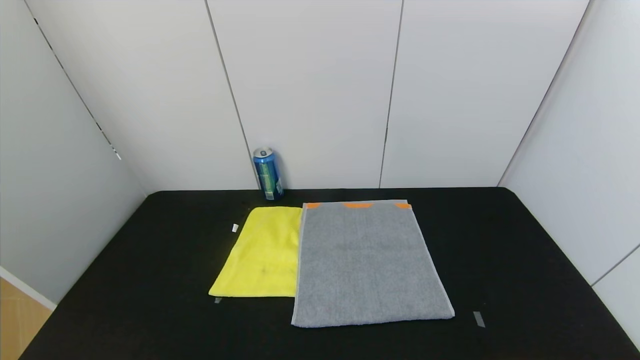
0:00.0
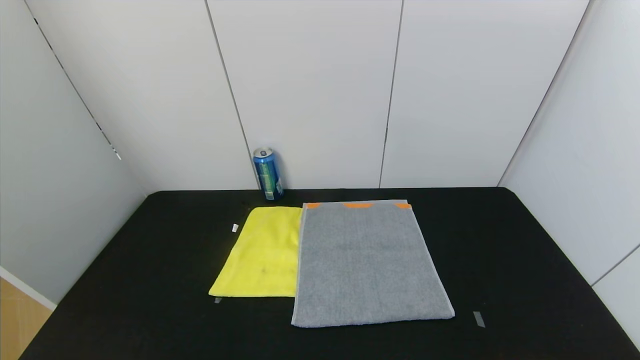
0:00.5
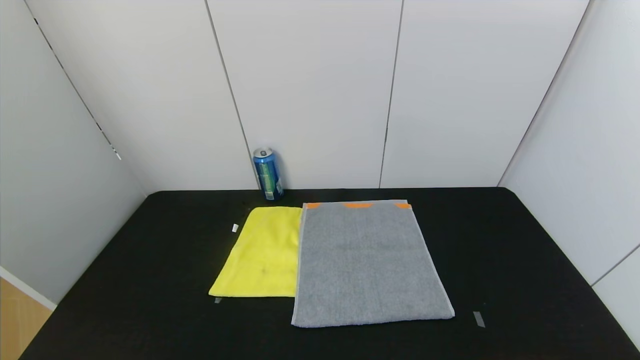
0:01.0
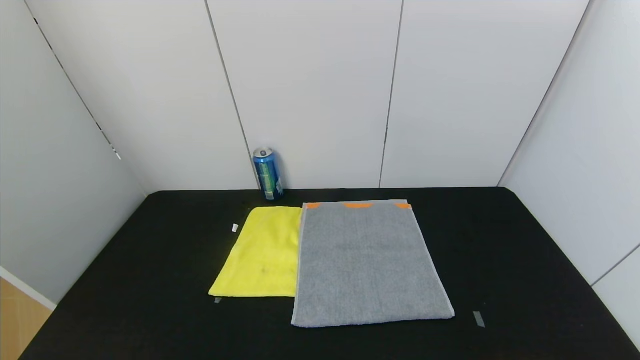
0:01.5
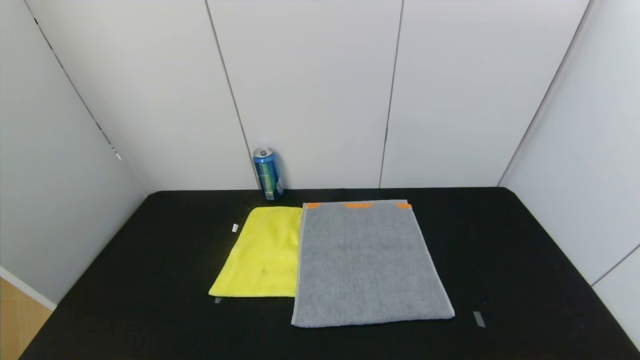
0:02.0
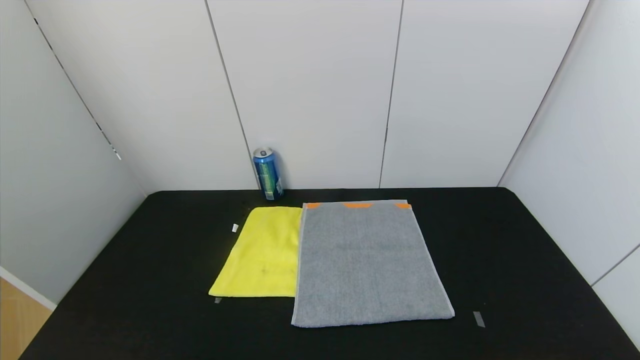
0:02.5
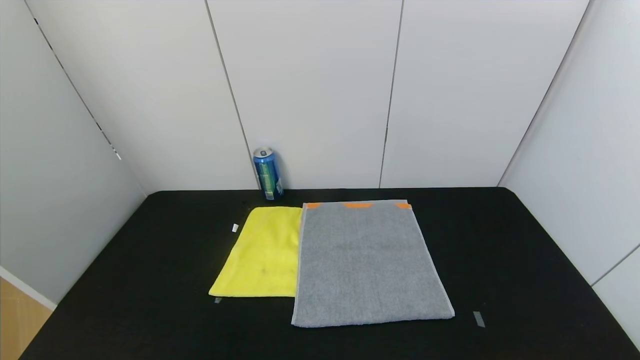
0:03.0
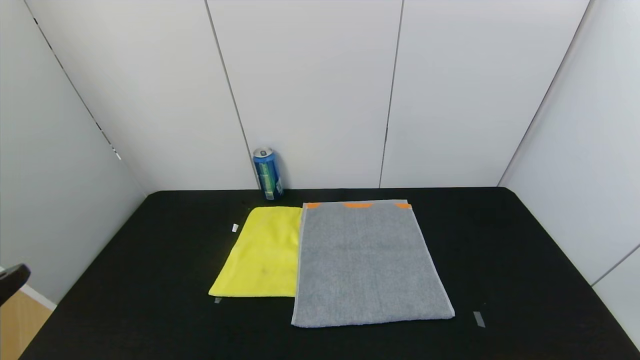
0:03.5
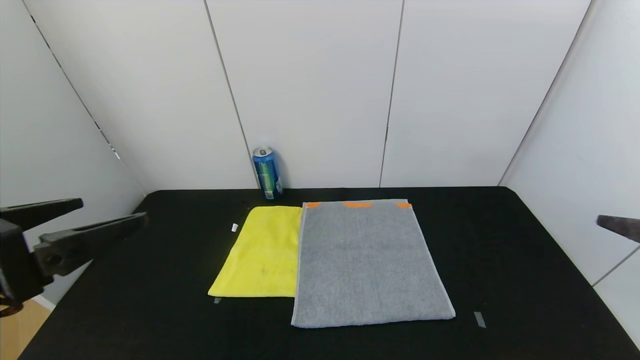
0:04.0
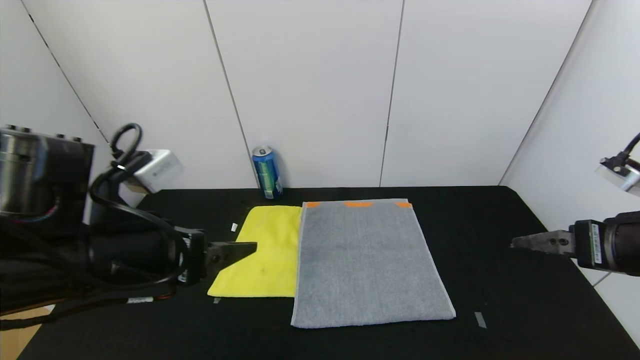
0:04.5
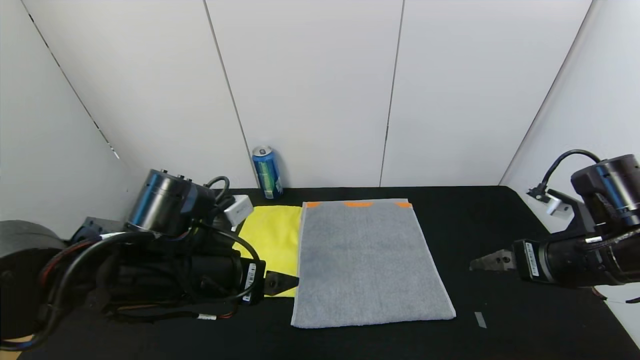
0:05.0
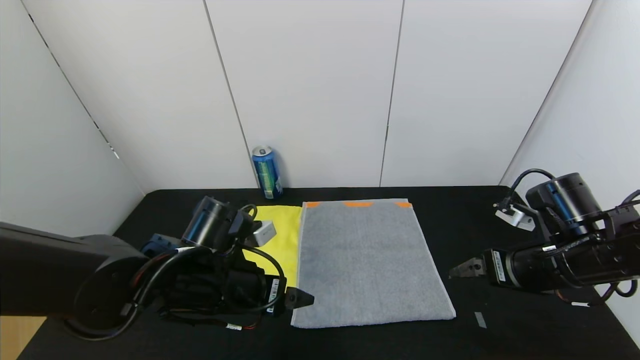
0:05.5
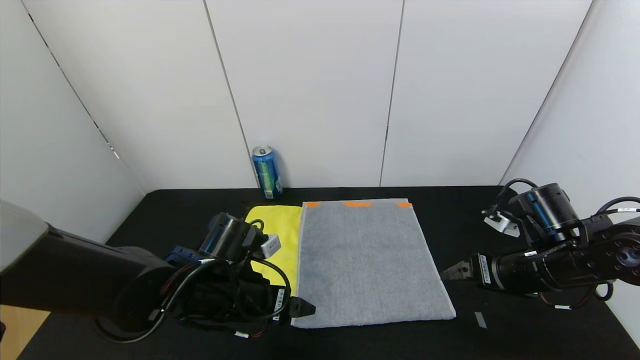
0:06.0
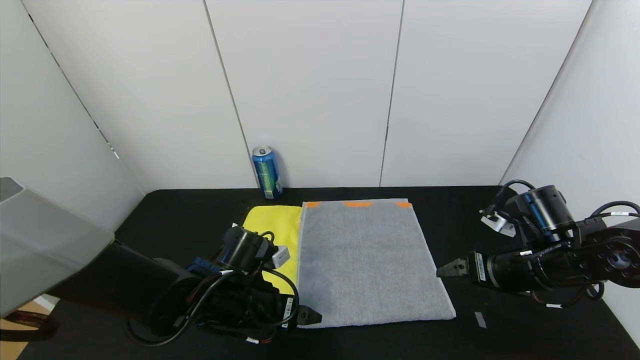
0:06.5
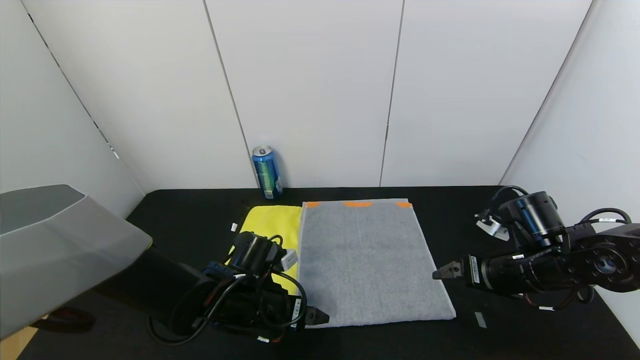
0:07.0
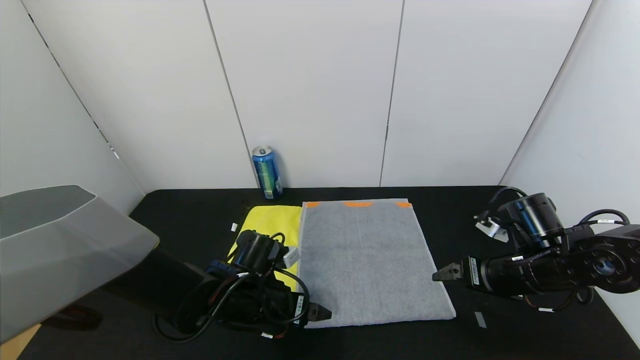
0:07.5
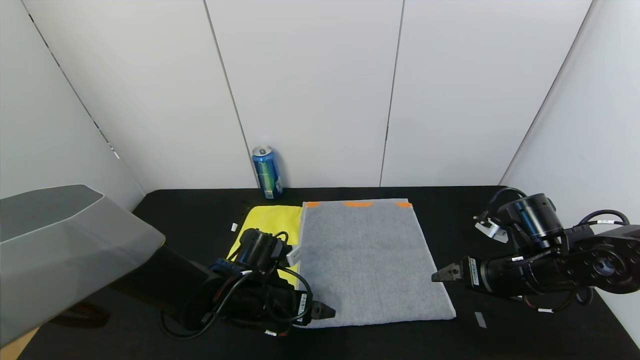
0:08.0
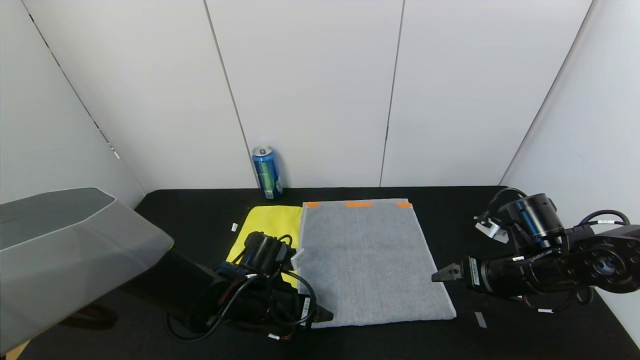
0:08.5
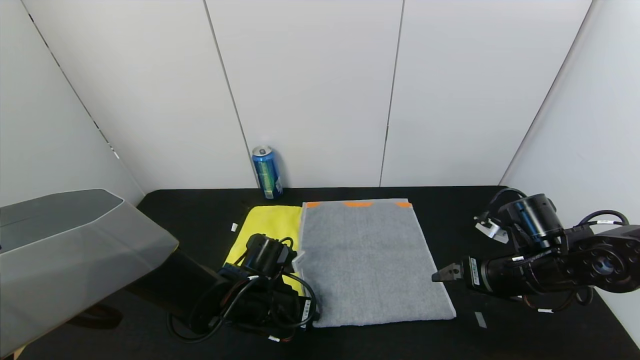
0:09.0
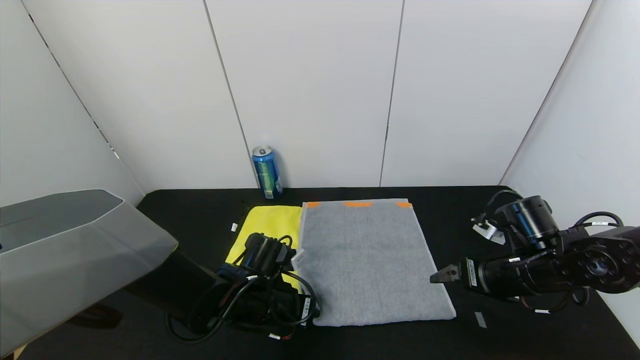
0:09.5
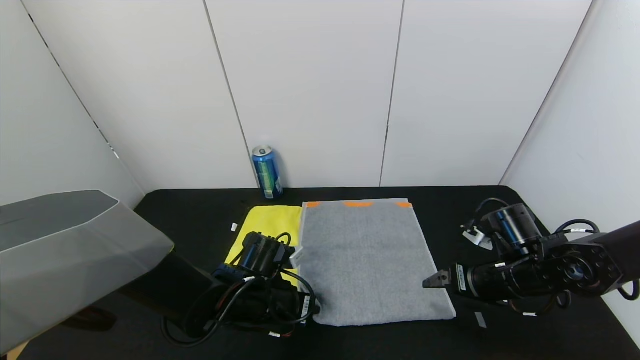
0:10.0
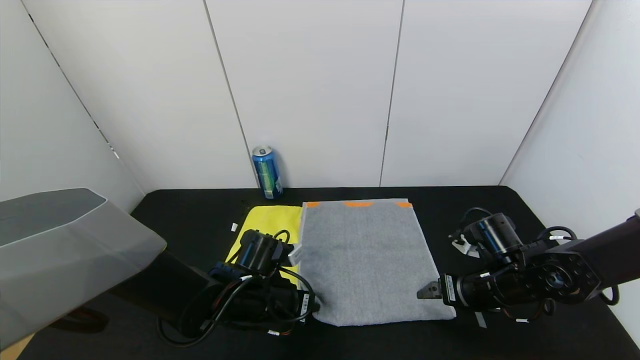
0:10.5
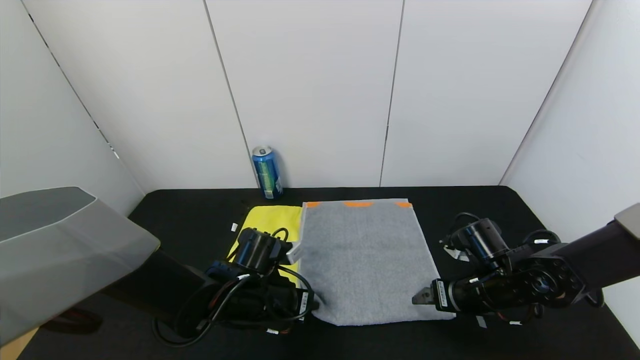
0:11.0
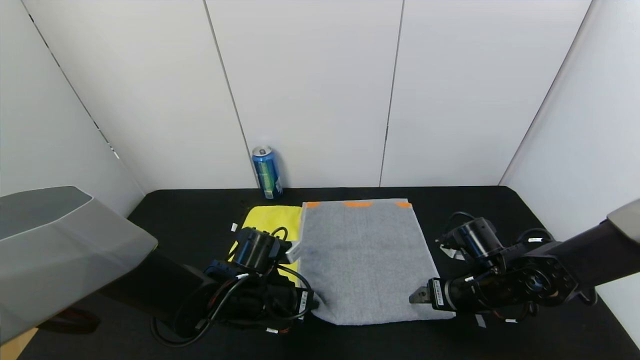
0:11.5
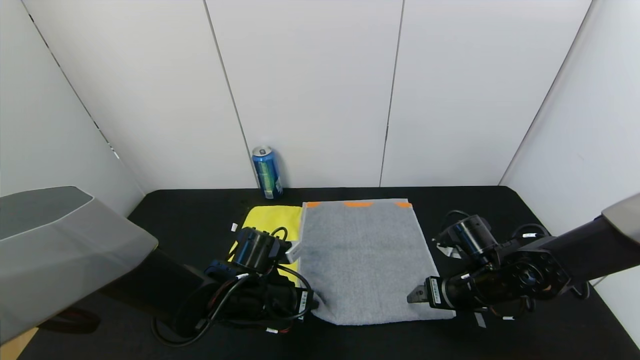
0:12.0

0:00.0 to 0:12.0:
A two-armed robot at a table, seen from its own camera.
Task of the whole recording: Use the gripper to fold the yellow towel and grey towel in half twice,then put the yellow towel on the grey towel.
0:00.0 to 0:02.0: Both grippers stay about where they are.
0:02.0 to 0:04.0: The two grippers go some 25 cm upward and forward.
0:04.0 to 0:06.0: The left gripper travels downward, forward and to the right by some 25 cm. Meanwhile the right gripper goes approximately 20 cm forward, downward and to the left.
0:06.0 to 0:08.0: The left gripper shifts some 5 cm downward.
0:08.0 to 0:10.0: The left gripper closes.
0:10.0 to 0:12.0: The grippers make only small movements.

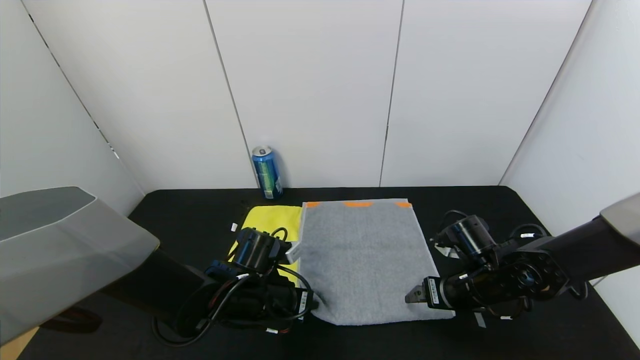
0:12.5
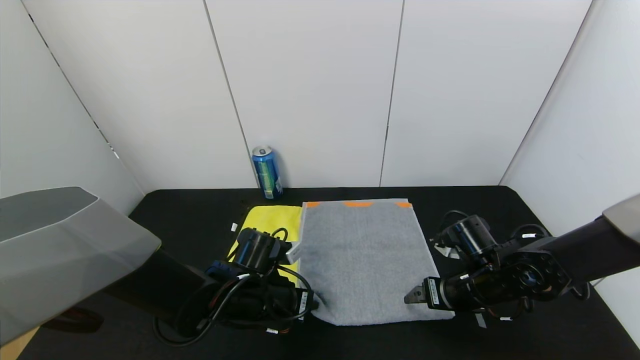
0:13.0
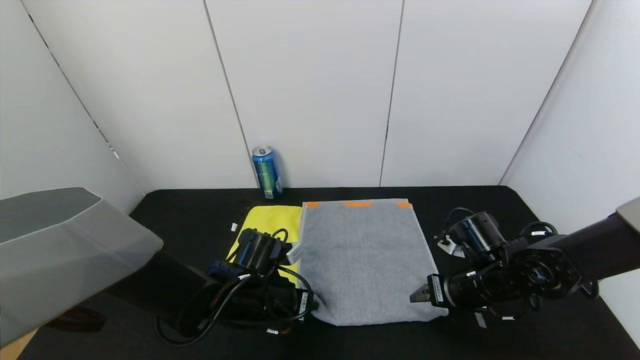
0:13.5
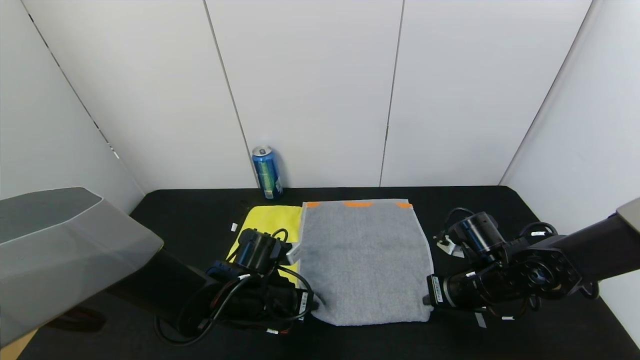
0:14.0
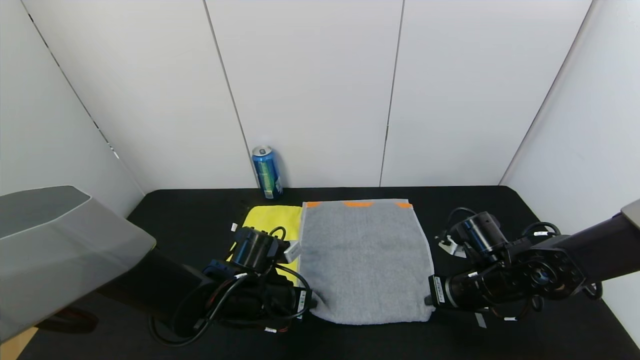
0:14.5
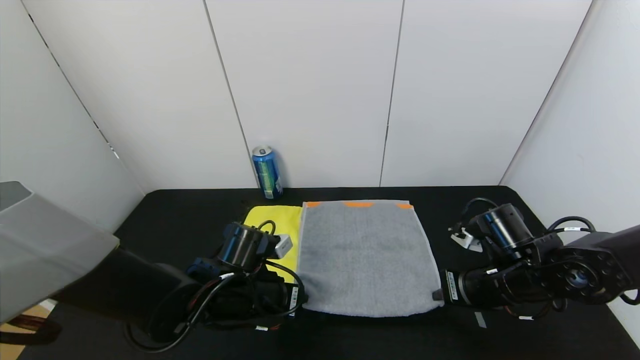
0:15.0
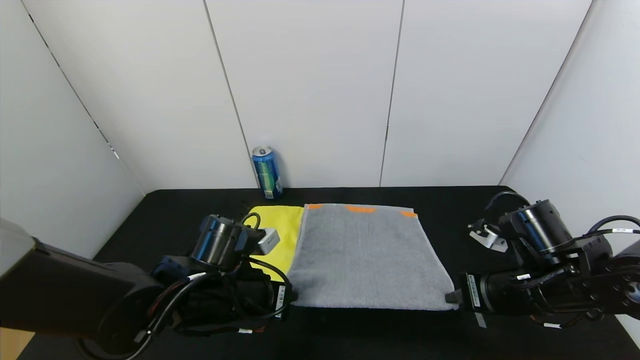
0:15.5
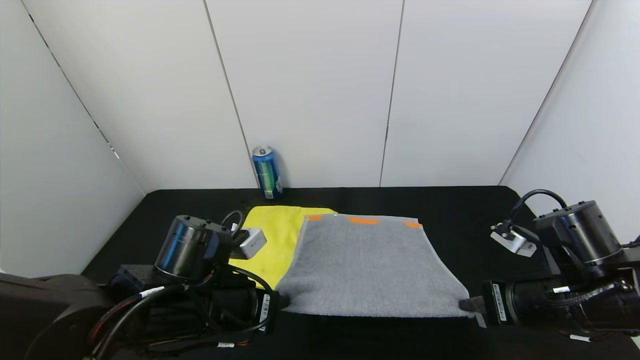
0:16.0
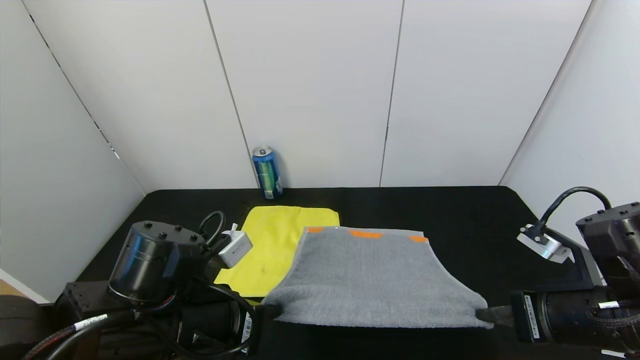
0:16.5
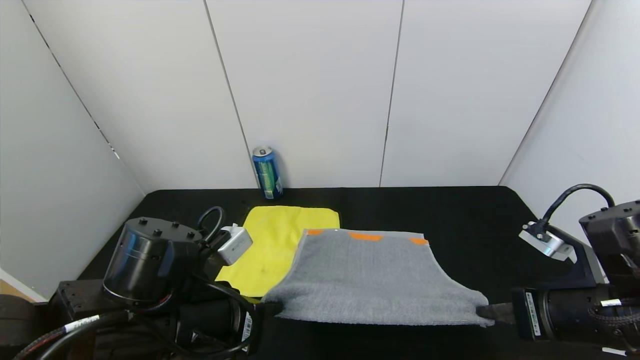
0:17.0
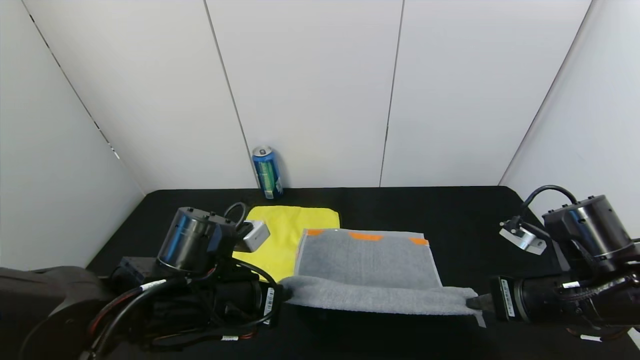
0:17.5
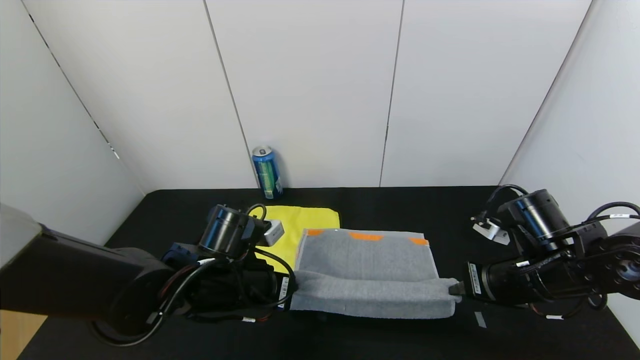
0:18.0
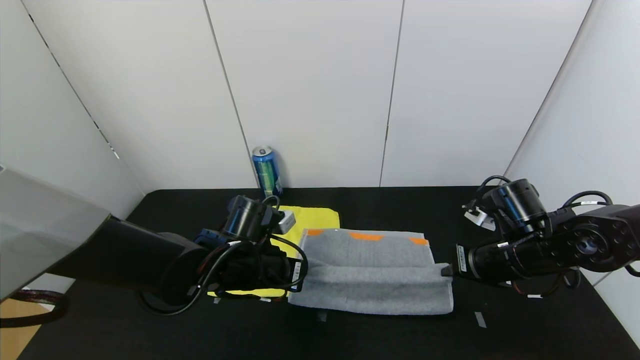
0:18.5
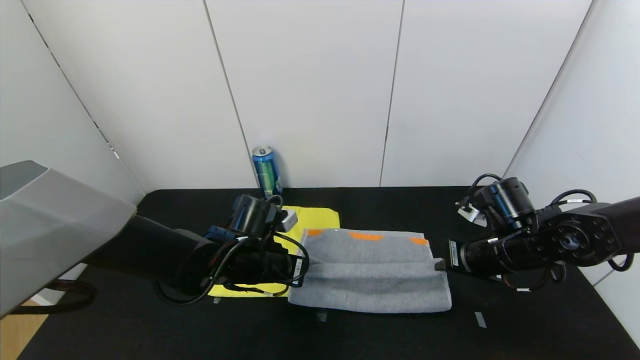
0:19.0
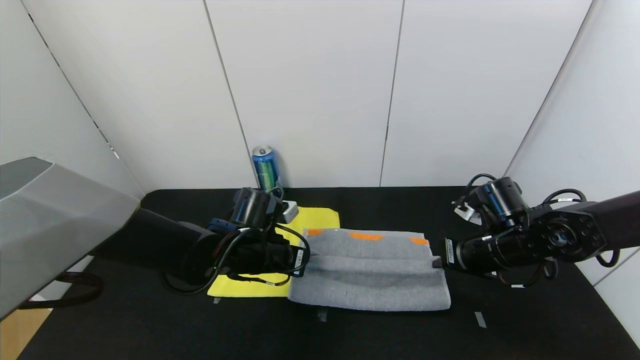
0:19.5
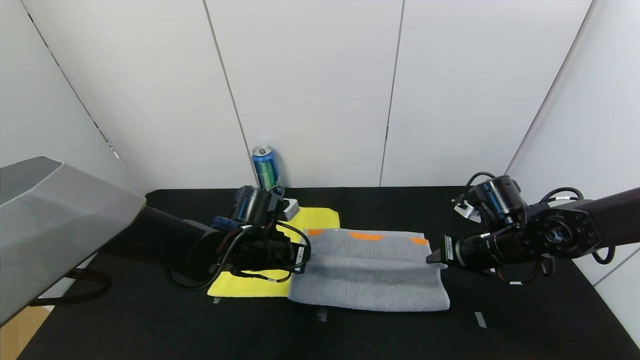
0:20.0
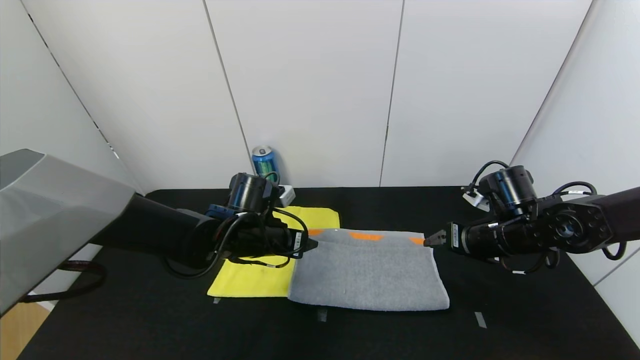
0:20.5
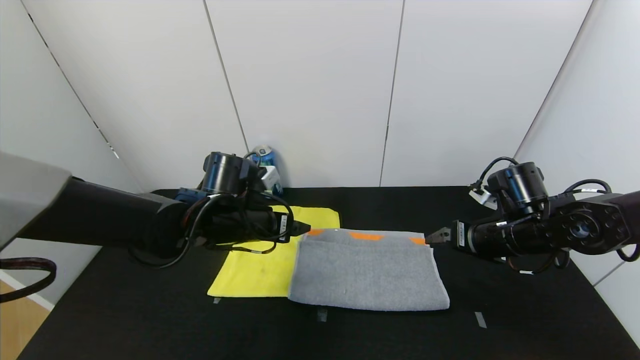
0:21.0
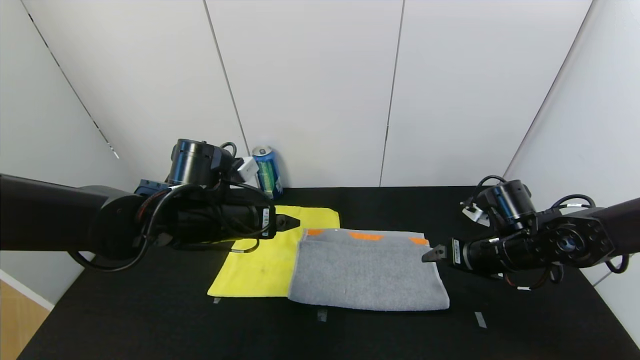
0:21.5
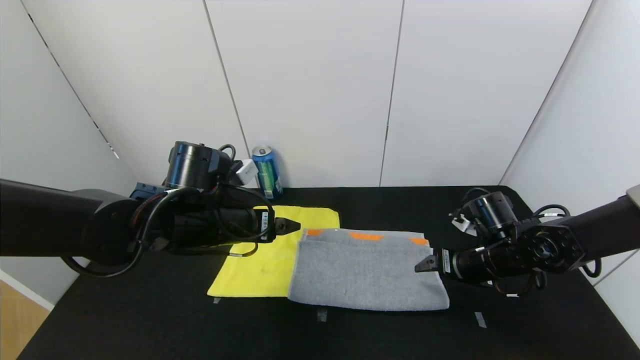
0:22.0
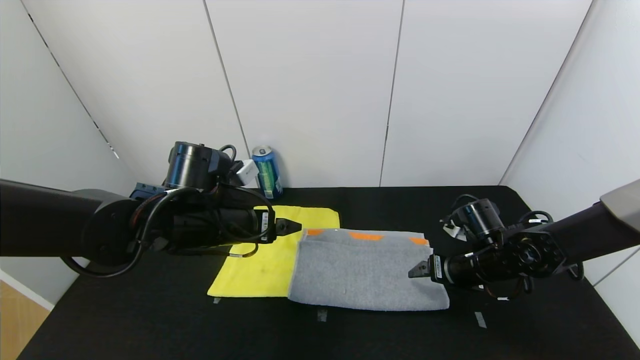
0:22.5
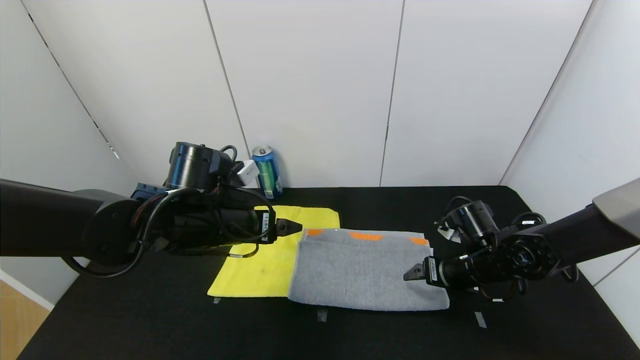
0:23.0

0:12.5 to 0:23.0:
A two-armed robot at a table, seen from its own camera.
Task of the whole recording: Use the gripper to fold the yellow towel and grey towel in half twice,then put the yellow towel on the grey towel.
Step, 0:12.5 to 0:20.5: Fold the gray towel upwards with the left gripper.
Step, 0:12.5 to 0:20.5: Fold the gray towel upwards with the right gripper.
0:12.5 to 0:14.5: The right gripper closes.
0:14.5 to 0:16.5: The grippers both shift backward and upward by some 15 cm.
0:16.5 to 0:19.0: The left gripper goes roughly 15 cm forward and downward; the right gripper shifts about 15 cm forward.
0:19.0 to 0:21.0: The left gripper heads upward, covering approximately 5 cm, and opens its fingers. Meanwhile the right gripper opens up.
0:21.0 to 0:23.0: The right gripper goes roughly 5 cm downward.
